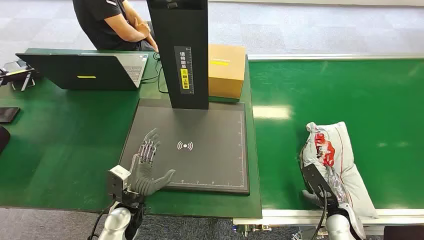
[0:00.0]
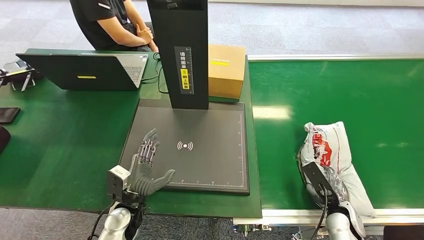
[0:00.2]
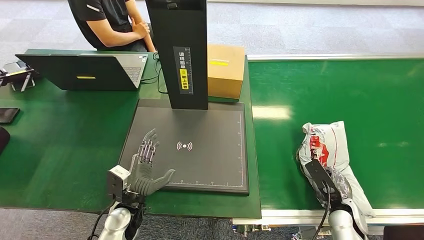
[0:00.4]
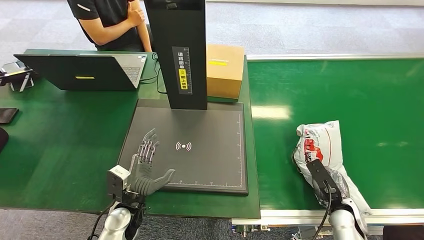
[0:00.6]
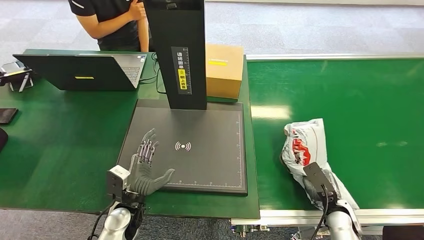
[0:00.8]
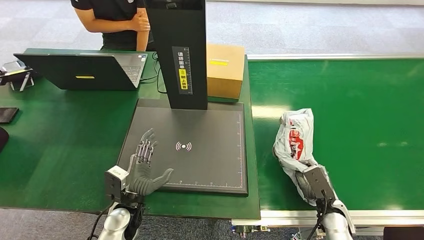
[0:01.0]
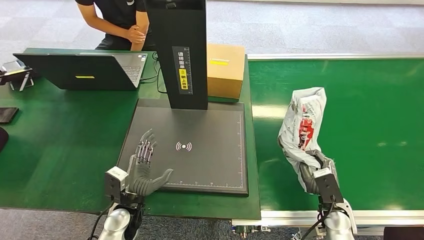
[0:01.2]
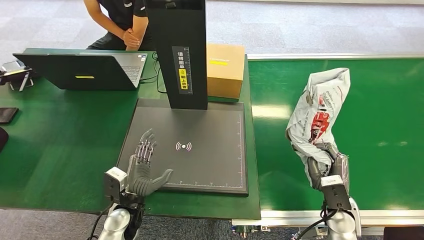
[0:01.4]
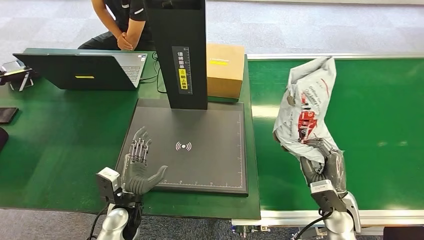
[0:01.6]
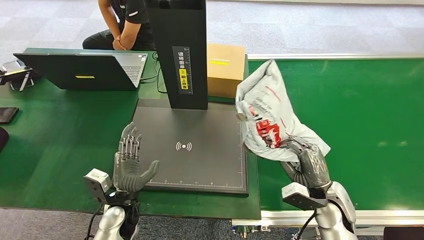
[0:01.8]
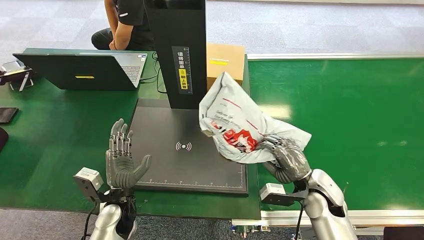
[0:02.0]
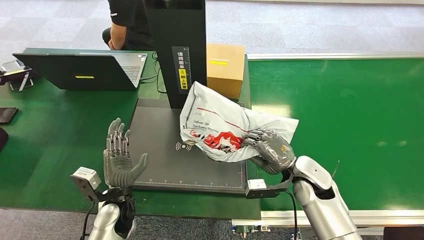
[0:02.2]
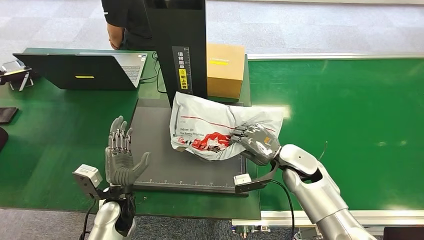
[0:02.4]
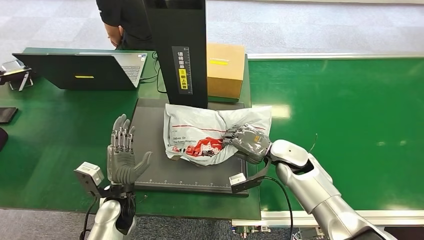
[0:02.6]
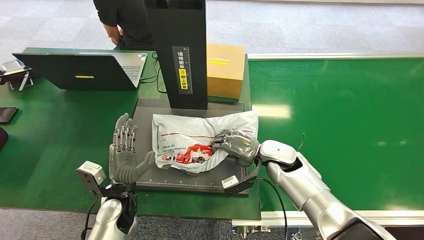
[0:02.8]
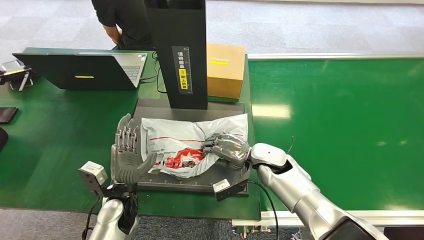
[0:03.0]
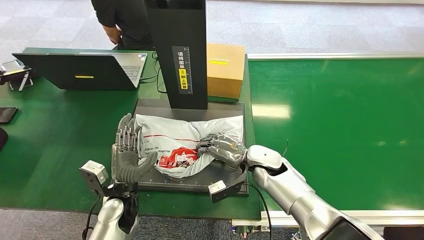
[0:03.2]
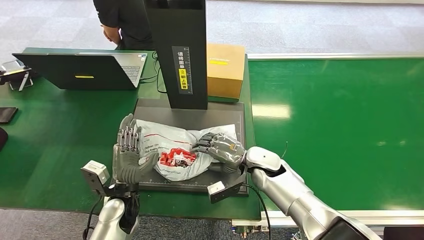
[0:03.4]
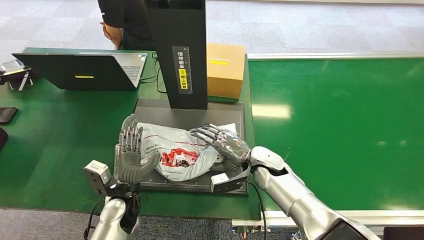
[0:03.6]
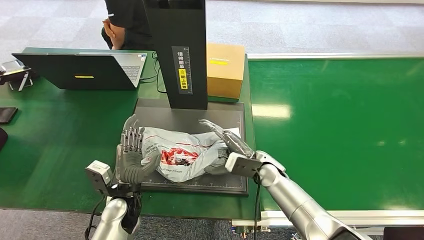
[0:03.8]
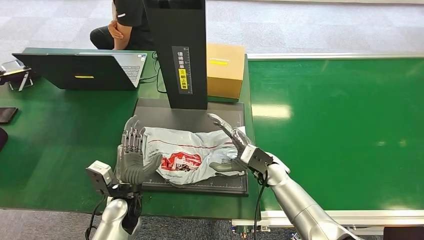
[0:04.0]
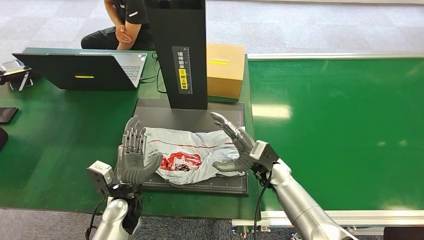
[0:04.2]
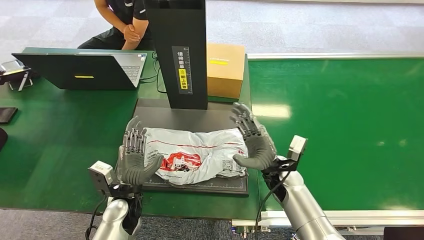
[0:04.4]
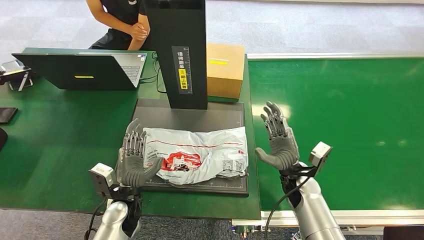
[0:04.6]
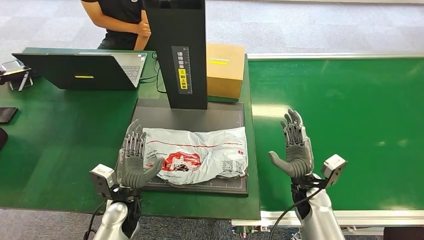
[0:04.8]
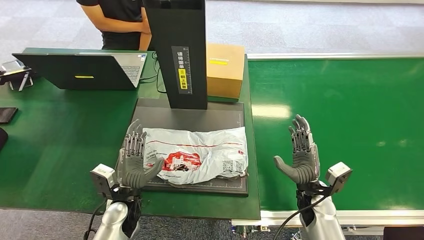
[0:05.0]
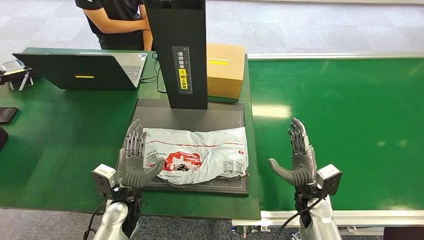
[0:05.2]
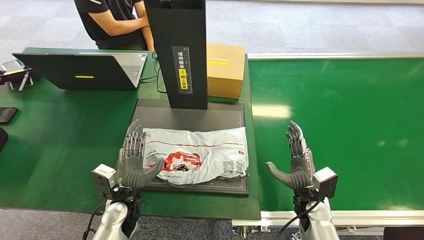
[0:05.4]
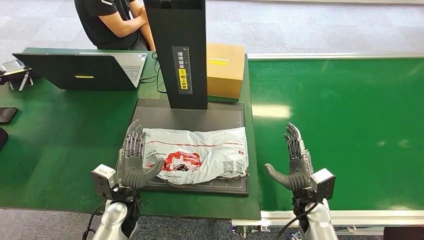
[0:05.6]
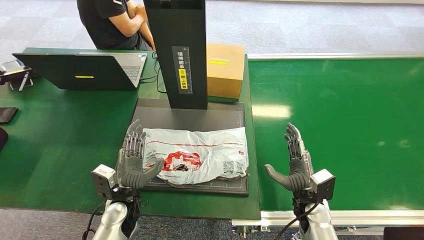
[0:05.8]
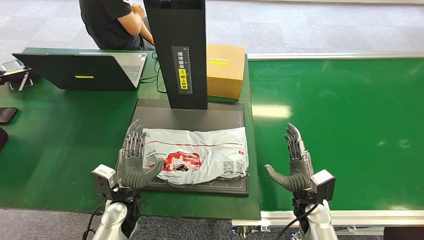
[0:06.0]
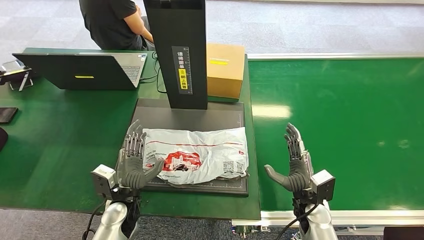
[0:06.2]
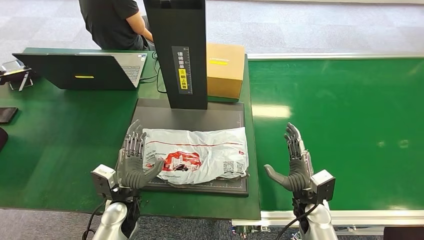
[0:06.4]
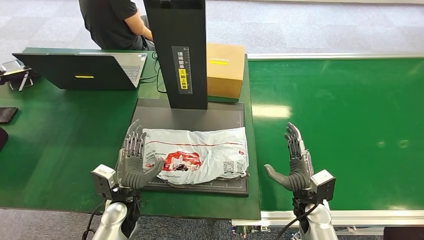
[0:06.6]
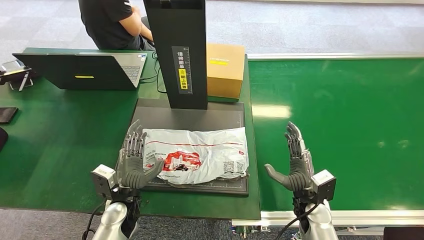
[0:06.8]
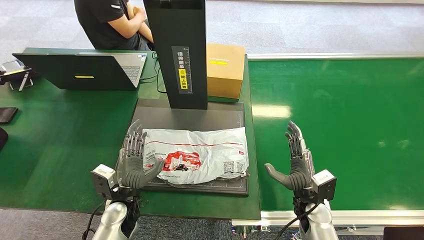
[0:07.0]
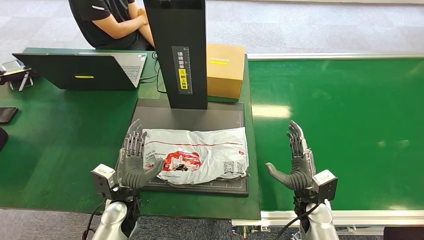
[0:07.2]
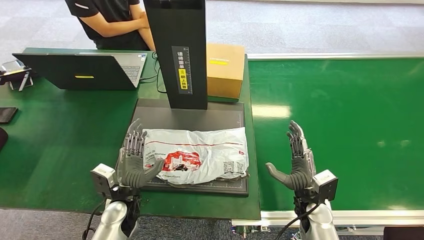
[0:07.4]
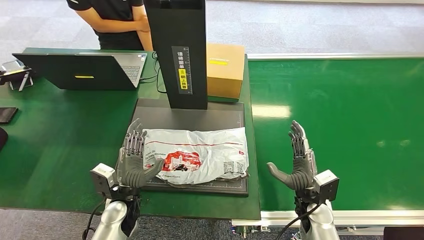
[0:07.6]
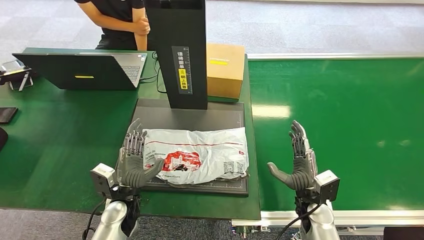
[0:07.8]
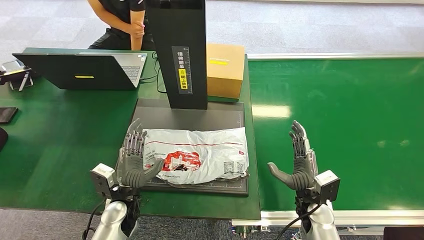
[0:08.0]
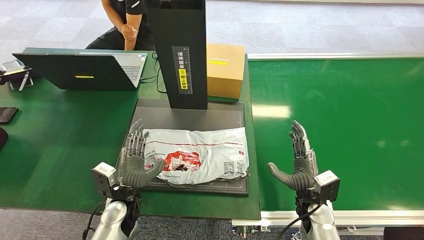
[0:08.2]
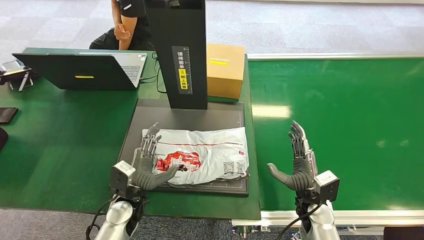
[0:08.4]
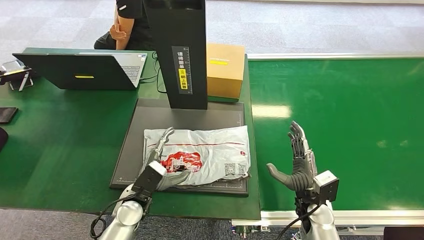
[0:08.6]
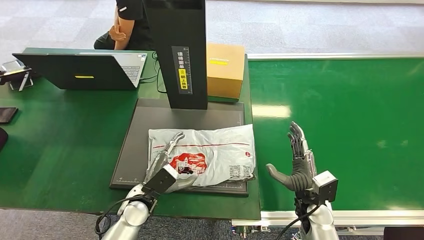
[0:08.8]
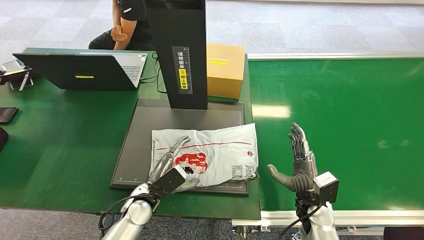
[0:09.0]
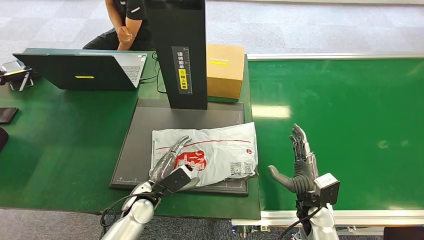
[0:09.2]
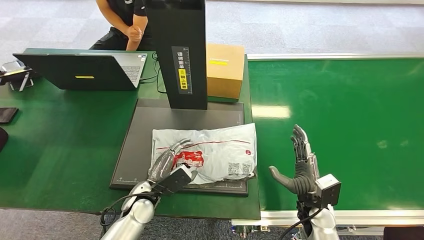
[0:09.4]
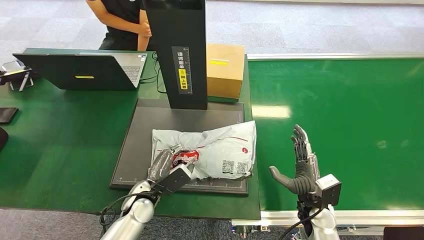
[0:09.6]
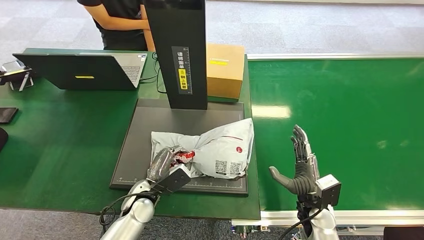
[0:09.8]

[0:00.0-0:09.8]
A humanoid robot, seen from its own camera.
Step, 0:00.0 to 0:01.4: Pick up the package from the conveyor belt.
Step, 0:01.6 to 0:04.6: Place the package onto the inbound machine.
0:04.2 to 0:05.6: The right hand moves to the right, backward and downward, about 15 cm.
0:05.6 to 0:07.0: The two hands keep their place.
0:07.0 to 0:08.4: The hands make only small movements.

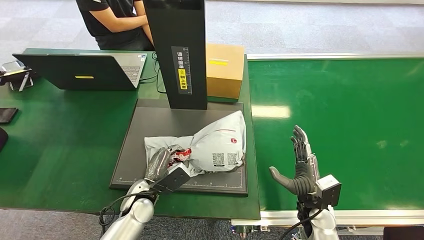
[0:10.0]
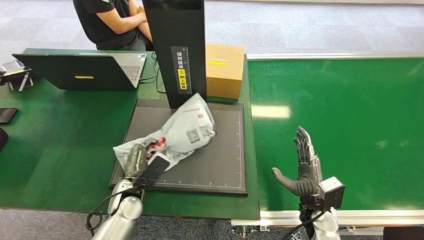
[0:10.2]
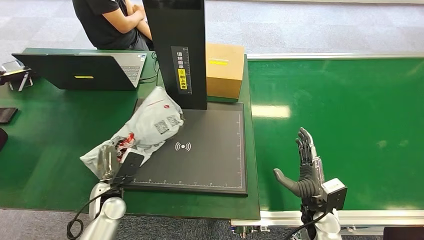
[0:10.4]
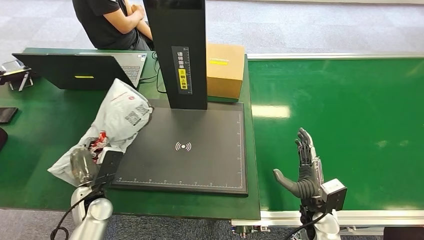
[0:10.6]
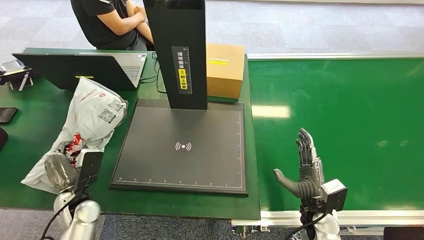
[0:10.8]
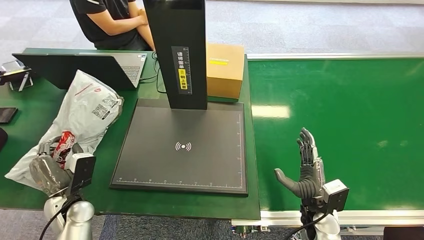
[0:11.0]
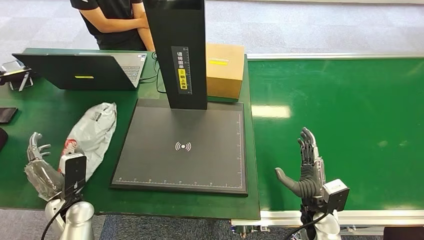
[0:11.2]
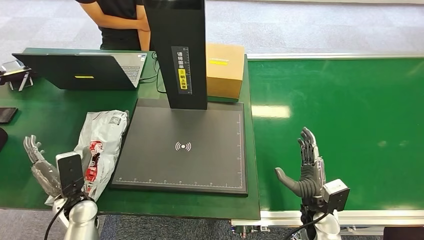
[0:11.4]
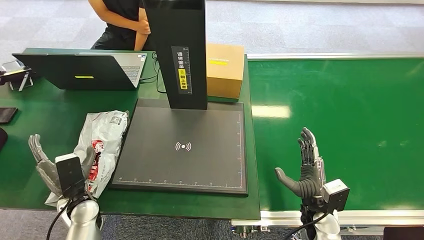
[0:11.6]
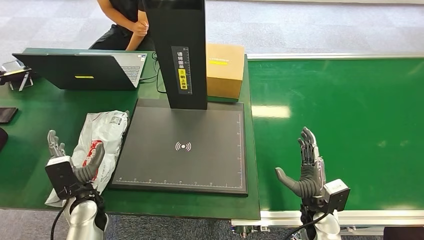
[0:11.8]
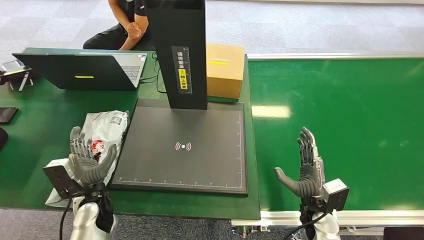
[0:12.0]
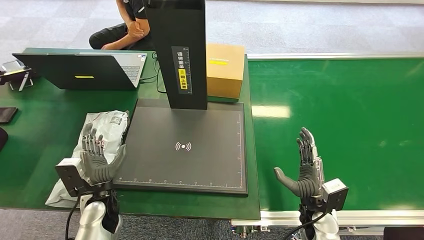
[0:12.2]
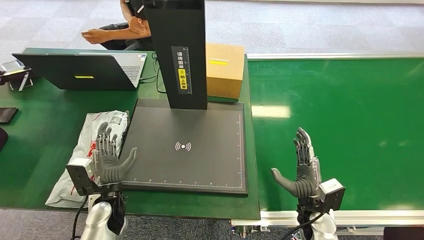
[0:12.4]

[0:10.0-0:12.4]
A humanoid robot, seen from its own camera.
Step, 0:10.6 to 0:12.4: Place the package into the parcel locker.
0:10.0 to 0:11.2: The left hand is displaced to the left by approximately 15 cm.
0:11.2 to 0:12.4: The left hand travels to the right by roughly 10 cm.
